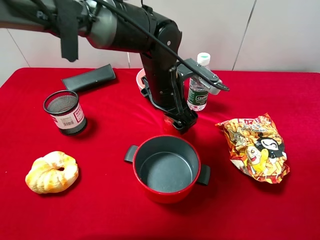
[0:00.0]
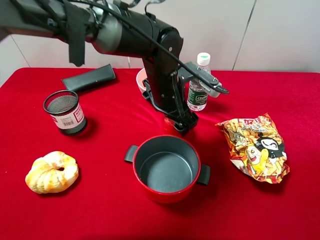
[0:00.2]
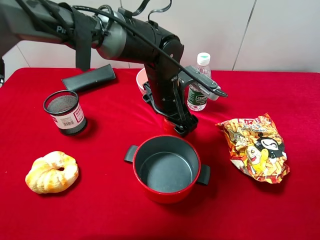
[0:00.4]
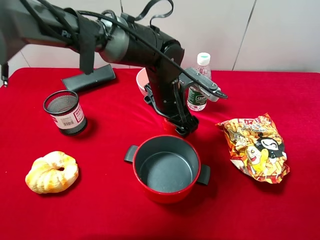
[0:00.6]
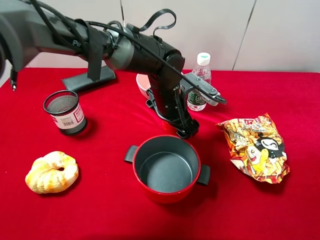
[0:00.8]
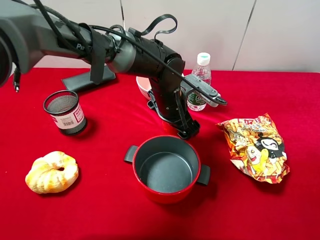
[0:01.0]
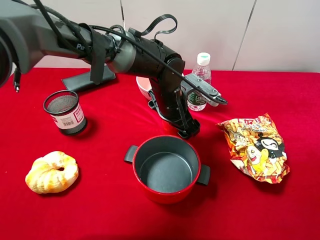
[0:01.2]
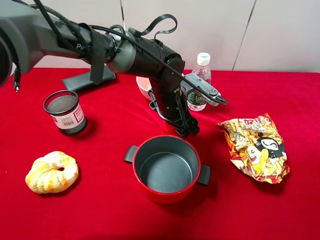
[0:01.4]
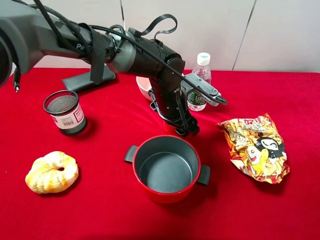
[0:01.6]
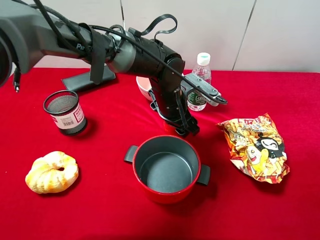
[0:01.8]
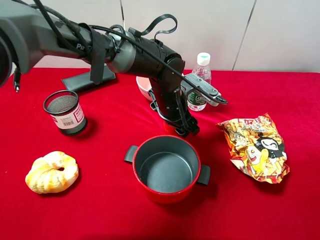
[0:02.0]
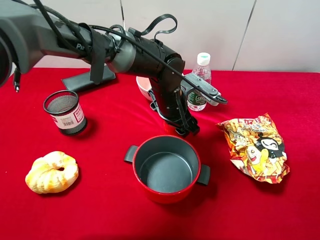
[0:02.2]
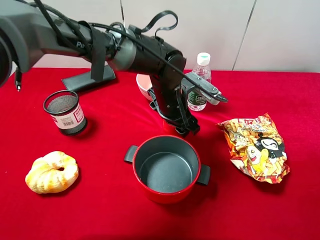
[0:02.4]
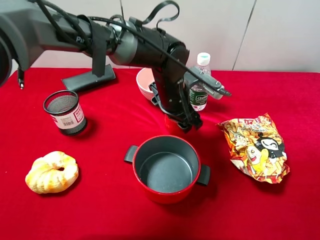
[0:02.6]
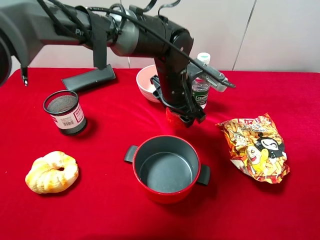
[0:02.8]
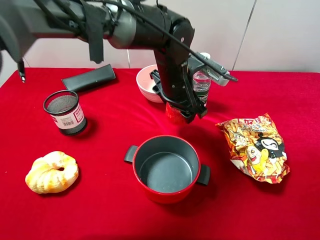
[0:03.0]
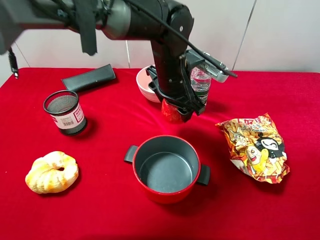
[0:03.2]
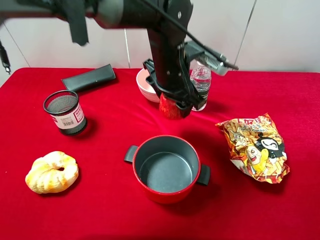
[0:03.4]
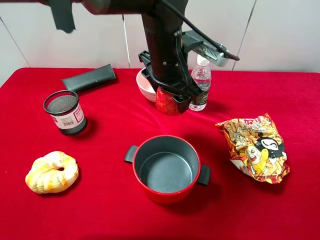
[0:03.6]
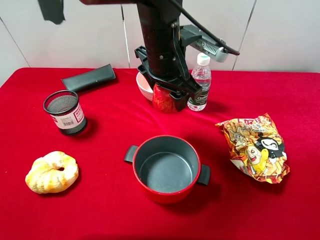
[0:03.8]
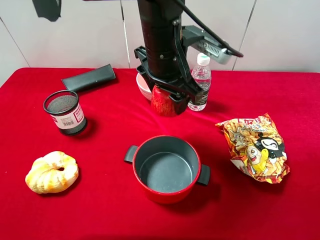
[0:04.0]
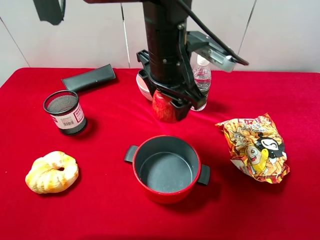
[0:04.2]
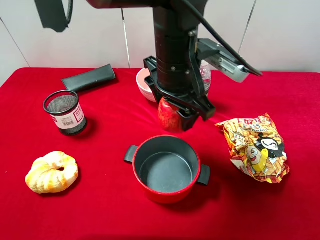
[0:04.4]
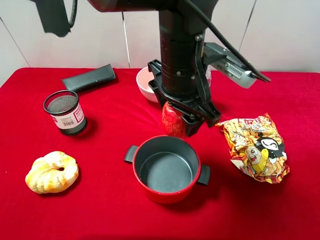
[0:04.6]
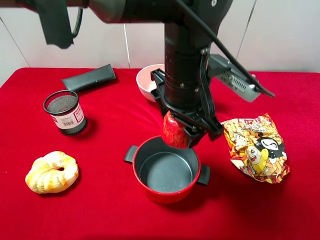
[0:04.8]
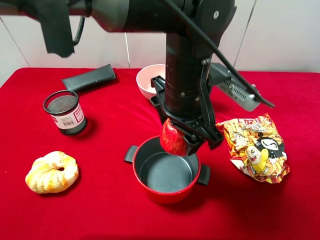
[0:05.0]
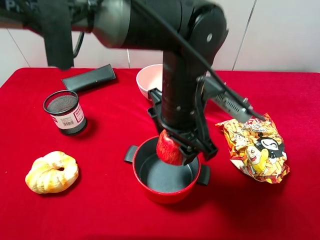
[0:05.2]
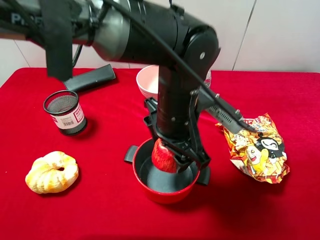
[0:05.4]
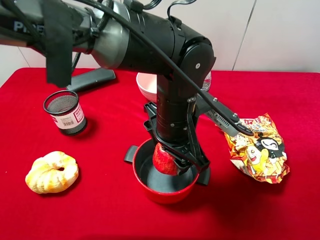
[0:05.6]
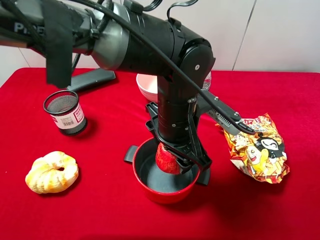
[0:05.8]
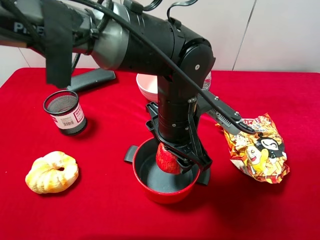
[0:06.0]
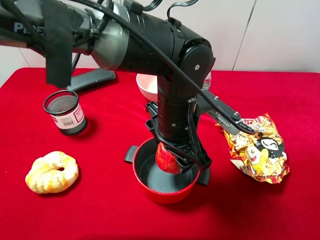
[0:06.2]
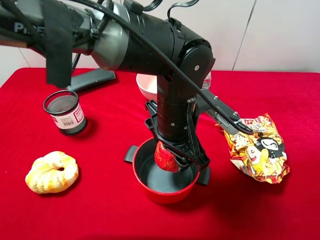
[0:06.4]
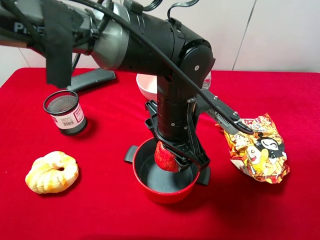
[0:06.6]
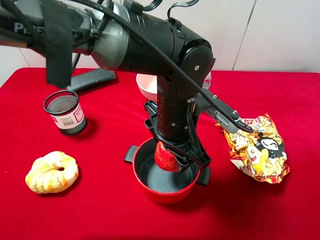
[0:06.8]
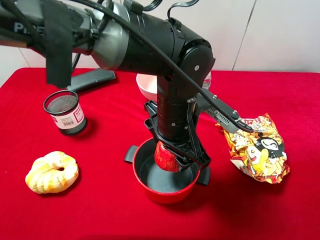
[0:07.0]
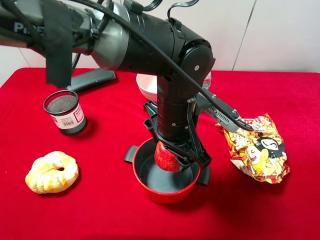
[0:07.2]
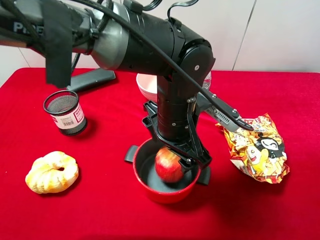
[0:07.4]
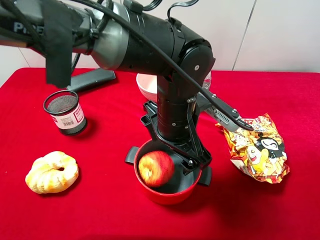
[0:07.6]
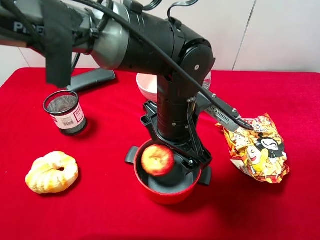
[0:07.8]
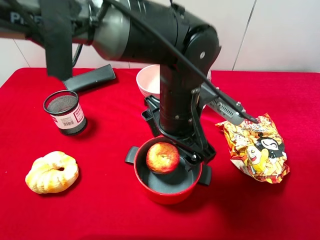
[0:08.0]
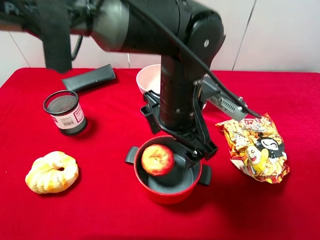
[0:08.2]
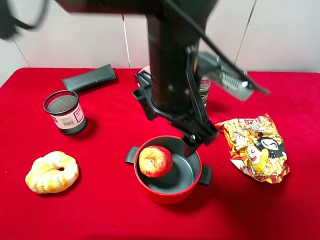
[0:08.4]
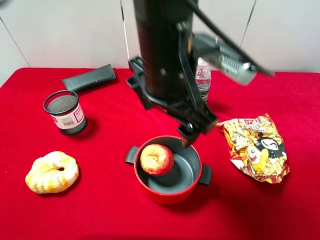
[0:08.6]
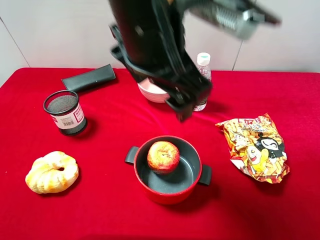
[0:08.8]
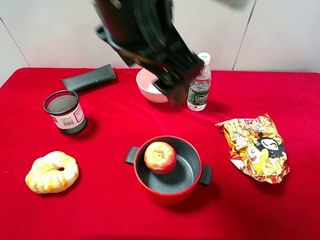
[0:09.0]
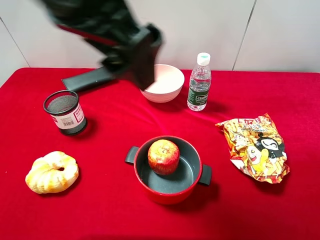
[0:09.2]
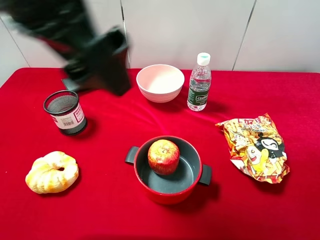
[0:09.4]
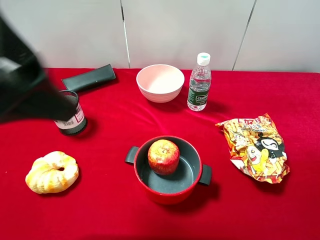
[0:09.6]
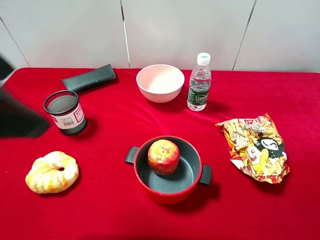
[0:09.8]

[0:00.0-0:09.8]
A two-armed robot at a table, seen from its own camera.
Task of the whole recording: pick up an item with a gripper and place it in a random container on the desktop.
0:00.0 to 0:01.4: The left gripper changes place by about 5 cm, and closes.
0:01.4 to 0:02.8: The grippers move only a little.
0:02.8 to 0:04.2: The left gripper is displaced upward by approximately 10 cm.
0:04.2 to 0:05.6: The left gripper is displaced downward and backward by approximately 10 cm.
0:05.6 to 0:07.0: Both grippers stay about where they are.
0:07.0 to 0:08.4: The left gripper travels upward by approximately 10 cm, and opens.
0:08.4 to 0:09.8: The left gripper is displaced to the left, upward and backward by about 25 cm.

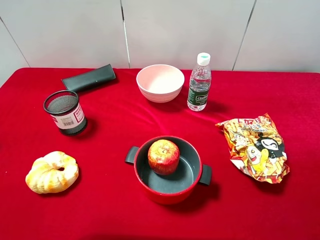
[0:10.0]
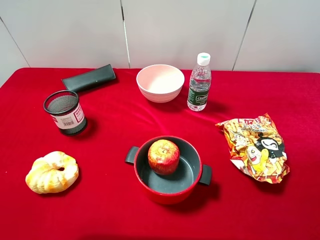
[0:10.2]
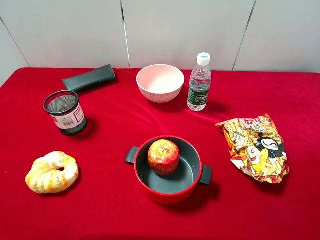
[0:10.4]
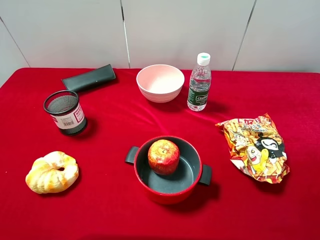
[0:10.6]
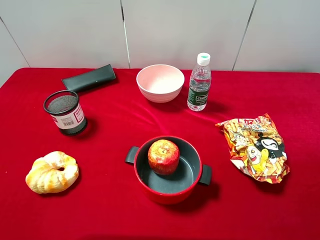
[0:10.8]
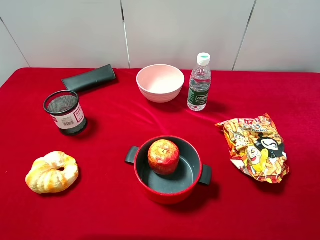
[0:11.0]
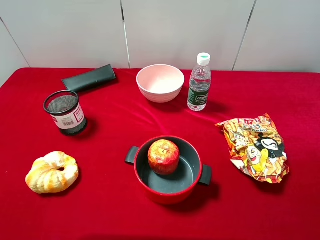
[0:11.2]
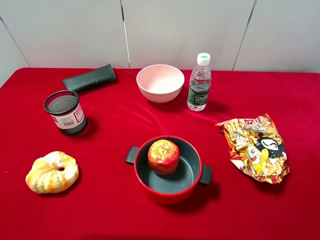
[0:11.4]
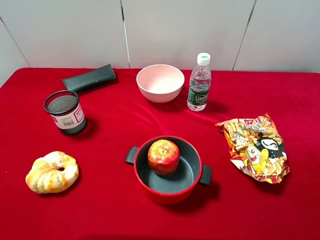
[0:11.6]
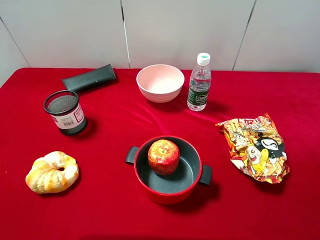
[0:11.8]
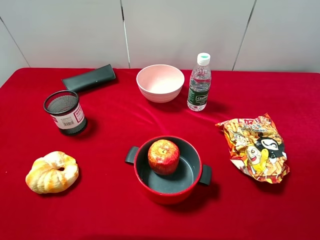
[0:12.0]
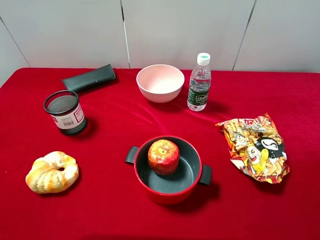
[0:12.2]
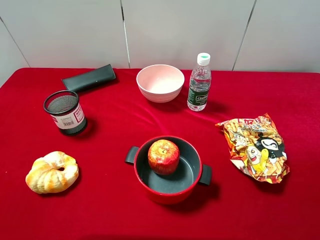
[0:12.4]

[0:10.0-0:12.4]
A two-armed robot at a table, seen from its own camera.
Task of the whole recording: pick up an item with a gripper and place it in a random container on the desktop.
0:11.2 to 0:12.4: Neither gripper changes place.

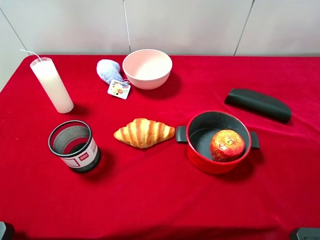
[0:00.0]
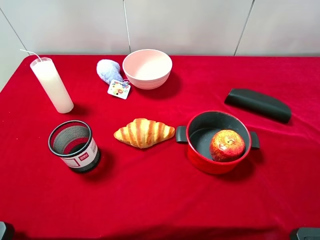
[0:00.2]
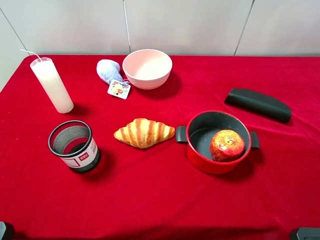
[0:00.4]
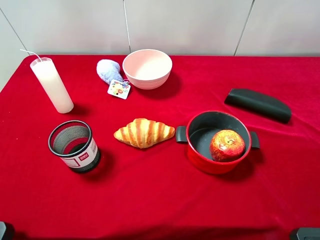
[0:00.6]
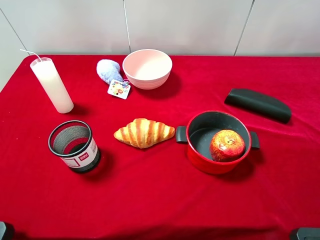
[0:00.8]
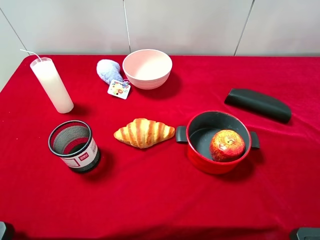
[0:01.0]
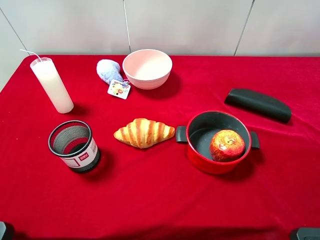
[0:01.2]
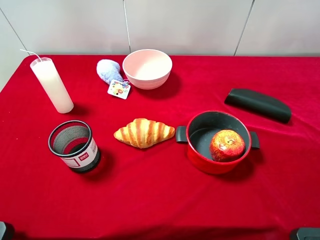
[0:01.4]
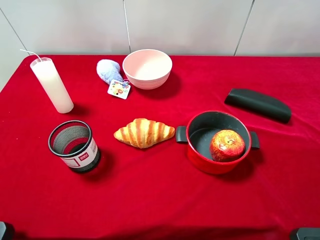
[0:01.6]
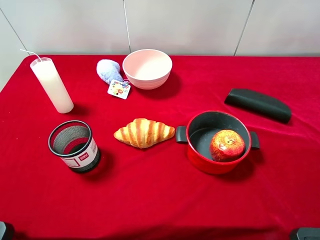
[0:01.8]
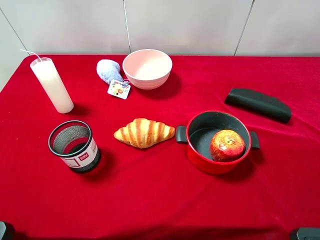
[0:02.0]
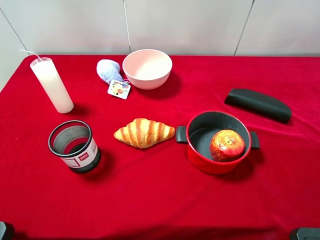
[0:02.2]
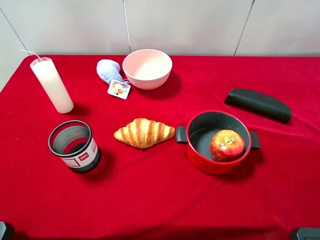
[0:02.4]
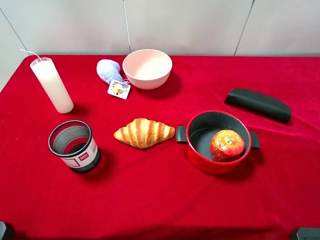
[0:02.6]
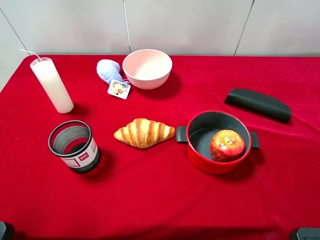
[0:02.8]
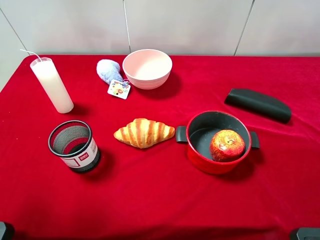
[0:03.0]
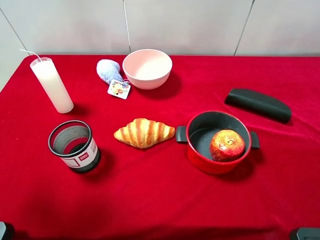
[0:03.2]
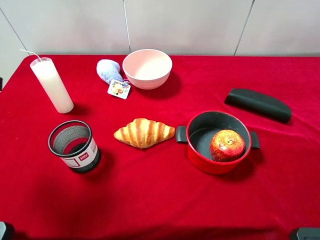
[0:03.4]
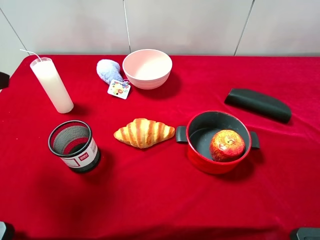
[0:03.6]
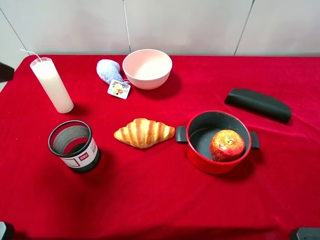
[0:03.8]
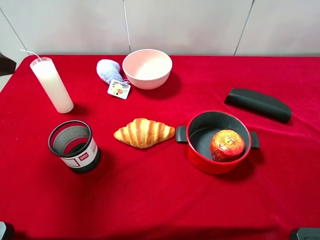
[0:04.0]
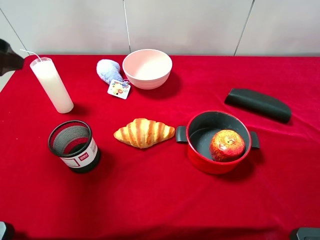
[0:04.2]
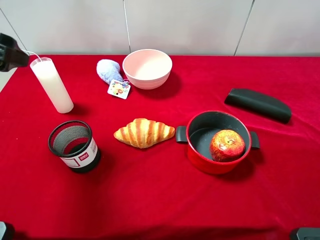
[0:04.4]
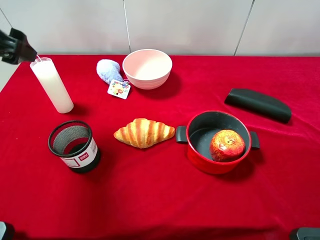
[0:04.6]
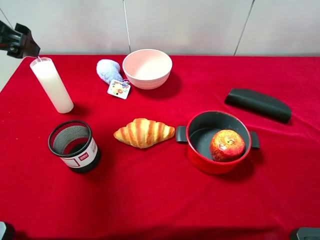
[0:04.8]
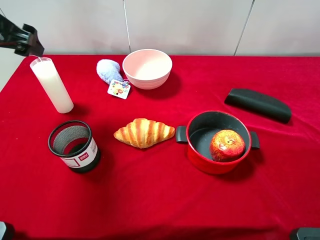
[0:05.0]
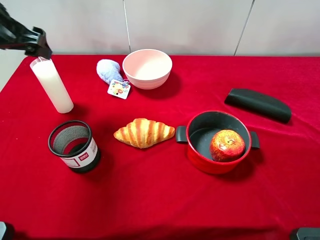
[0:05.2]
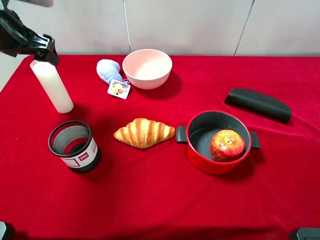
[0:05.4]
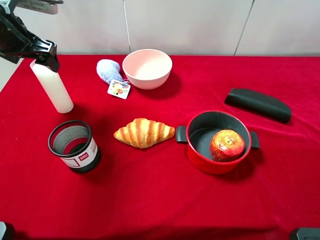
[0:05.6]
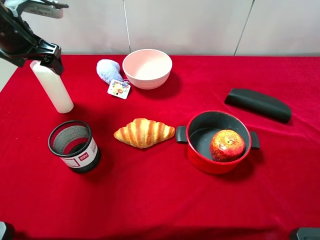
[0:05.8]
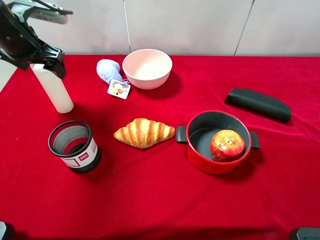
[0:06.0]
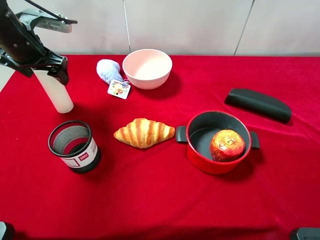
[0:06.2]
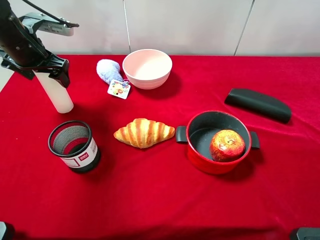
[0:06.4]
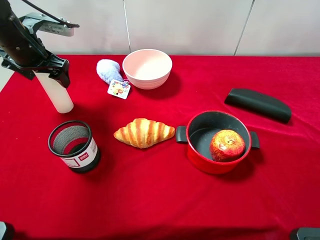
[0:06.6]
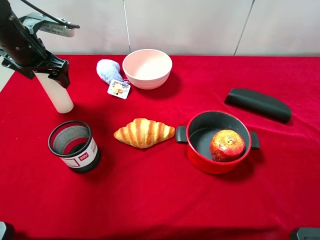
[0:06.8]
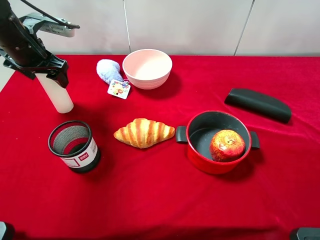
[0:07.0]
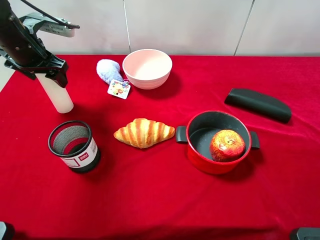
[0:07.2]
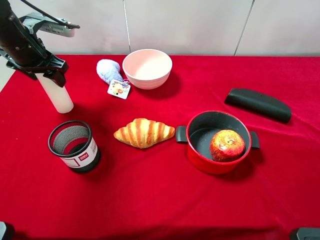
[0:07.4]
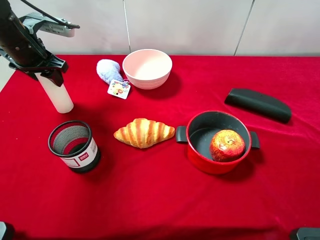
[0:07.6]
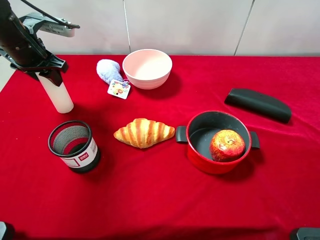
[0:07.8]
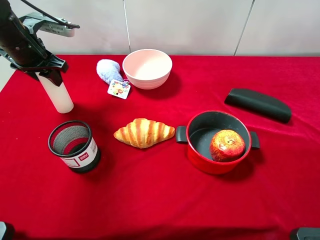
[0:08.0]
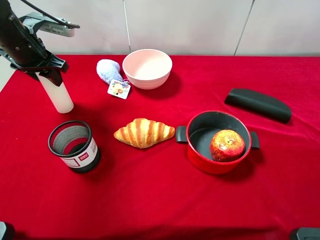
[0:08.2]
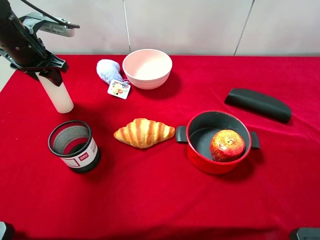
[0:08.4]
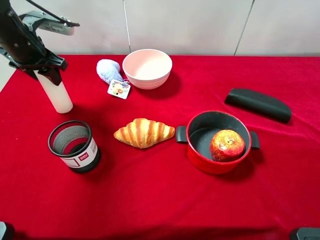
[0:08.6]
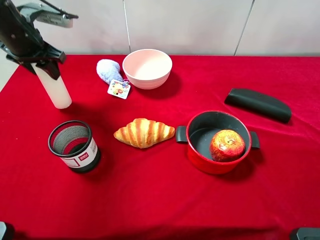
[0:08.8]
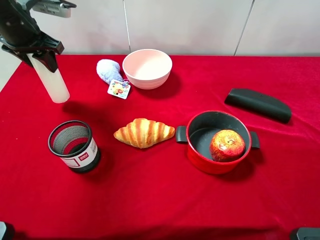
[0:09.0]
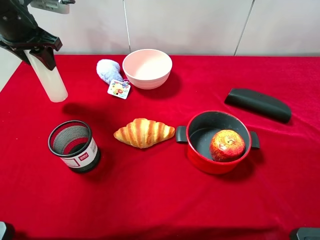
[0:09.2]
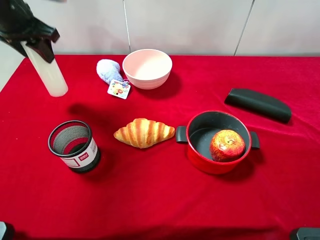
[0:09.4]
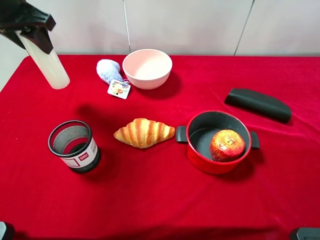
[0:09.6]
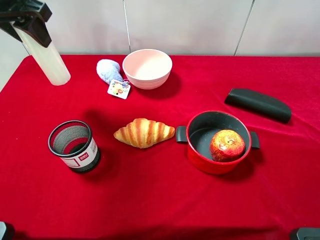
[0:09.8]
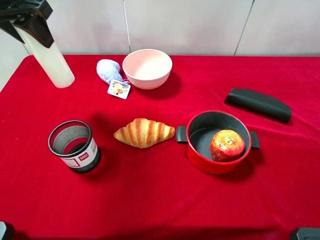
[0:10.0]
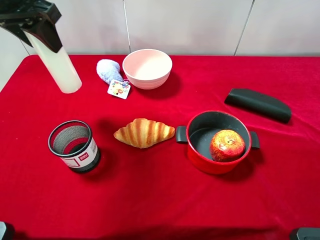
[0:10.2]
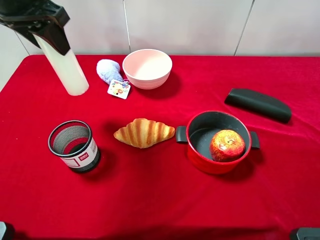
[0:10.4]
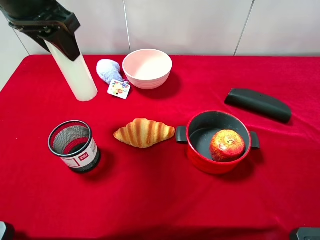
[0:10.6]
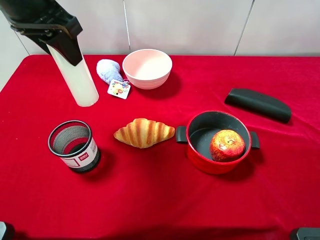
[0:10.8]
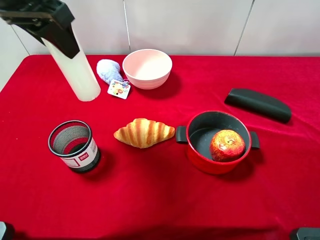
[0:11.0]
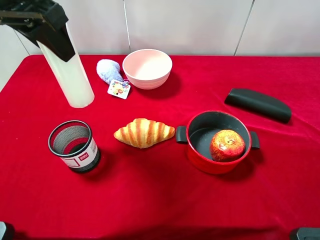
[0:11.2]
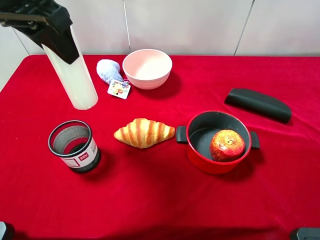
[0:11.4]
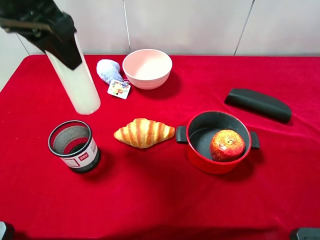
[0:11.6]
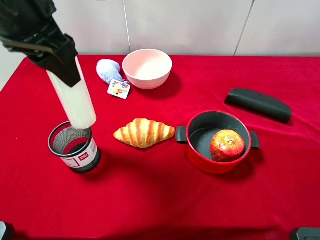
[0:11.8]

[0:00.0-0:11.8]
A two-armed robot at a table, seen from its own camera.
Task of the whole recording: pick up an item with a gripper and place it in a random container on the desktop.
0:00.0 to 0:01.4: Both grippers stay about where they are.
0:03.0 to 0:04.4: The left gripper heads forward, covering approximately 15 cm.
0:04.4 to 0:06.0: The left gripper goes roughly 15 cm forward and downward.
0:06.0 to 0:07.4: The left gripper closes up.
0:07.4 to 0:08.8: The grippers stay close to where they were, moving slightly.
0:08.8 to 0:10.4: The left gripper heads upward, to the right and backward, covering about 15 cm.
0:10.4 to 0:11.8: The left gripper is displaced backward by about 5 cm.
